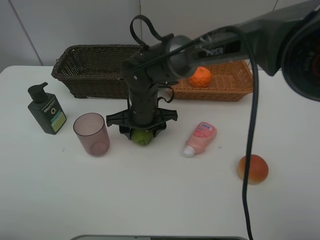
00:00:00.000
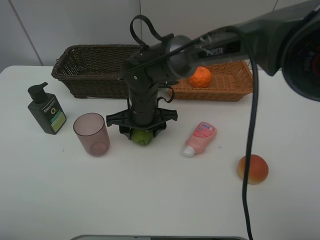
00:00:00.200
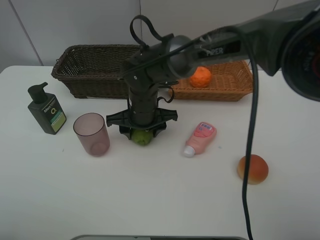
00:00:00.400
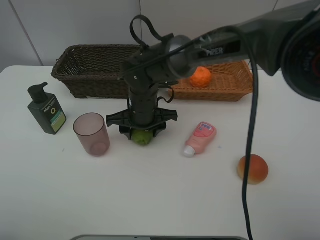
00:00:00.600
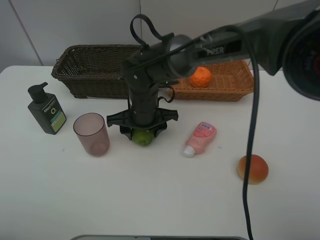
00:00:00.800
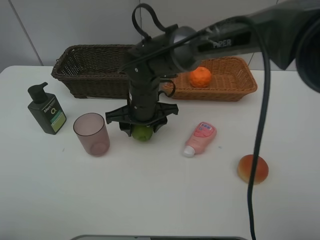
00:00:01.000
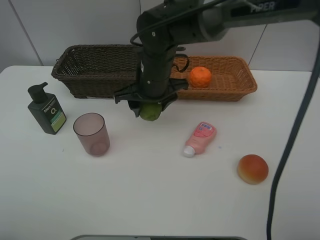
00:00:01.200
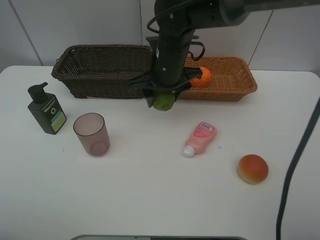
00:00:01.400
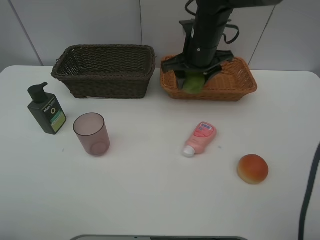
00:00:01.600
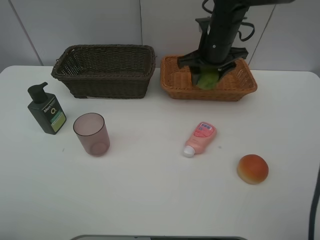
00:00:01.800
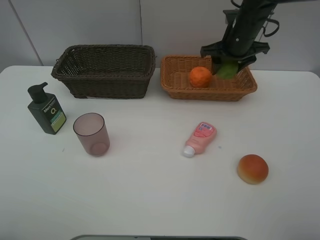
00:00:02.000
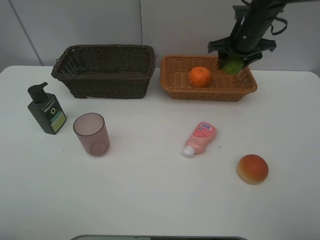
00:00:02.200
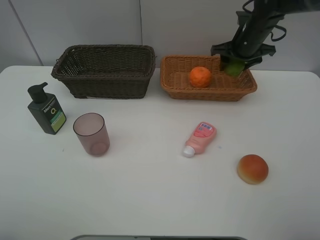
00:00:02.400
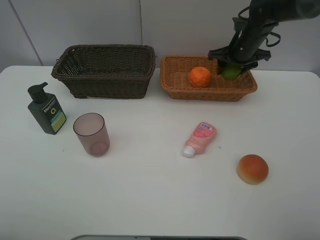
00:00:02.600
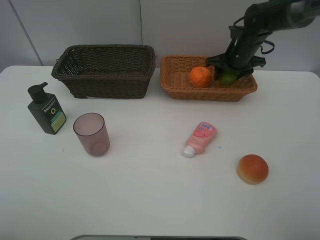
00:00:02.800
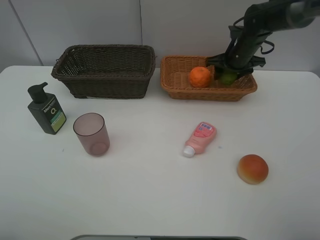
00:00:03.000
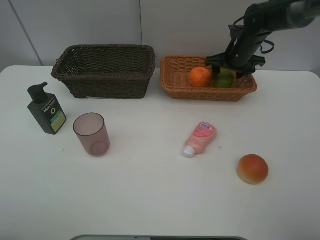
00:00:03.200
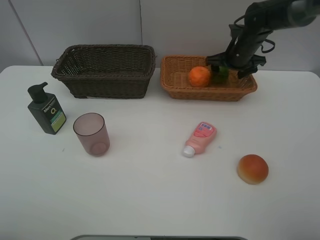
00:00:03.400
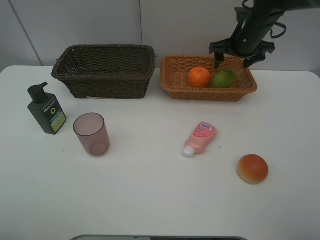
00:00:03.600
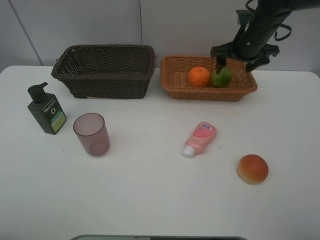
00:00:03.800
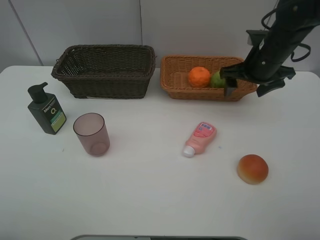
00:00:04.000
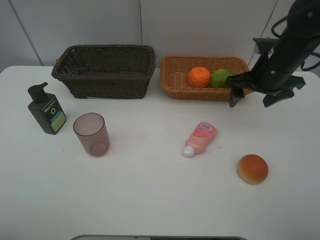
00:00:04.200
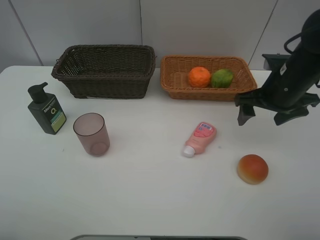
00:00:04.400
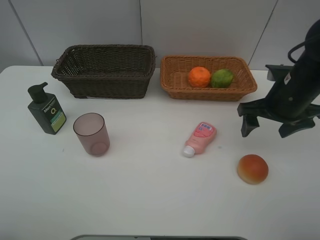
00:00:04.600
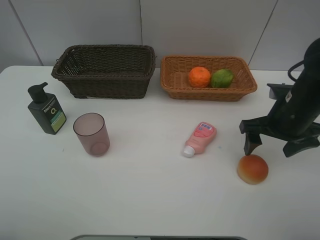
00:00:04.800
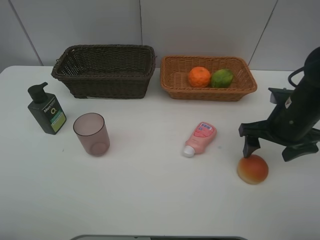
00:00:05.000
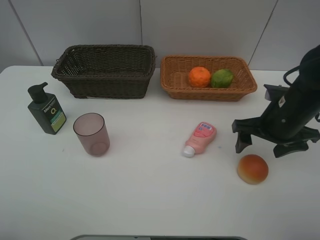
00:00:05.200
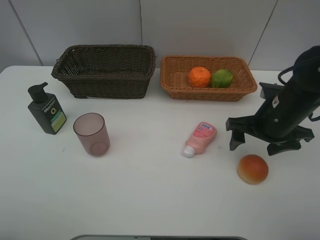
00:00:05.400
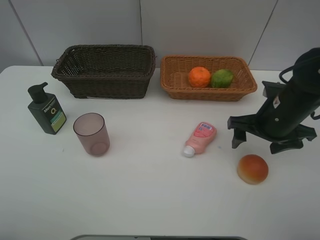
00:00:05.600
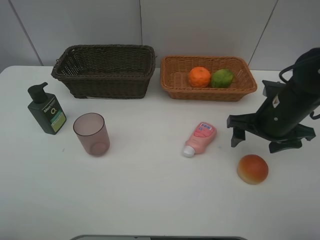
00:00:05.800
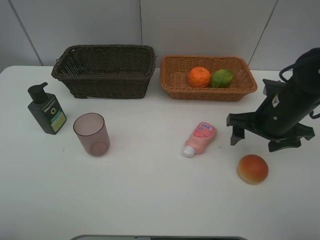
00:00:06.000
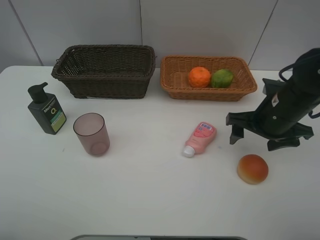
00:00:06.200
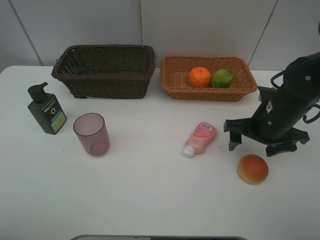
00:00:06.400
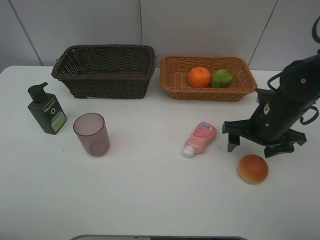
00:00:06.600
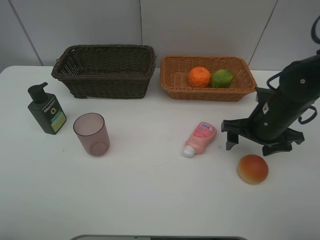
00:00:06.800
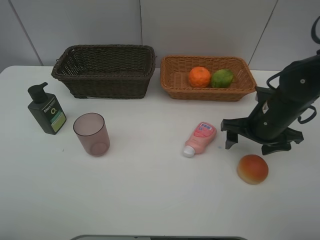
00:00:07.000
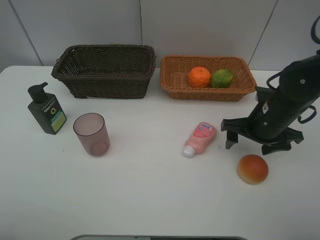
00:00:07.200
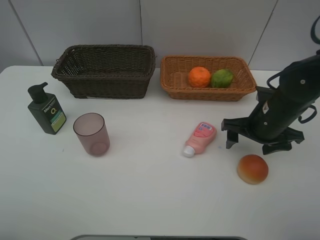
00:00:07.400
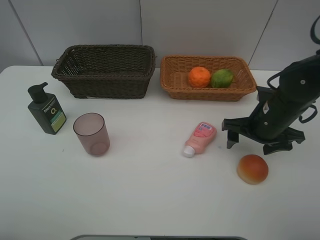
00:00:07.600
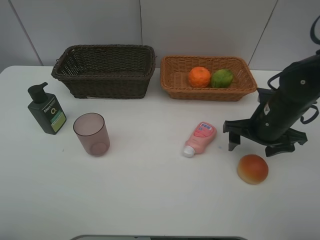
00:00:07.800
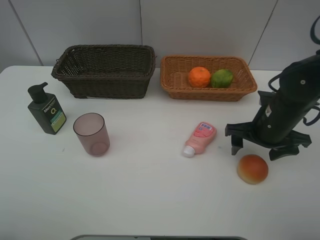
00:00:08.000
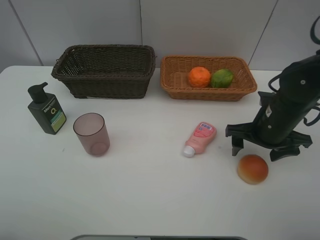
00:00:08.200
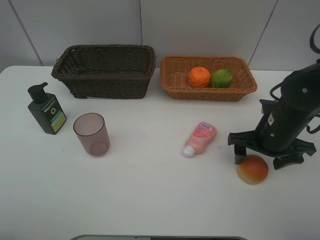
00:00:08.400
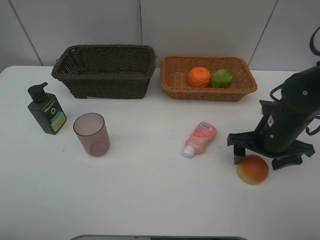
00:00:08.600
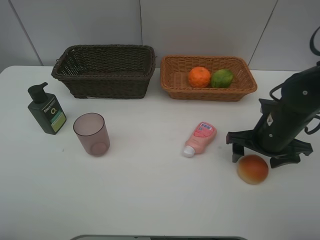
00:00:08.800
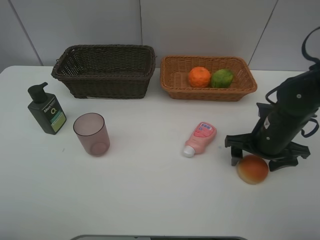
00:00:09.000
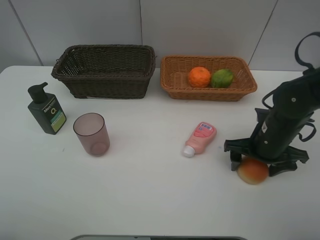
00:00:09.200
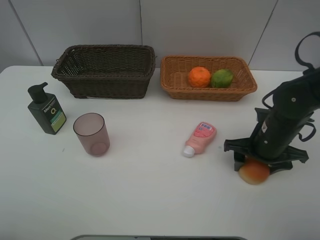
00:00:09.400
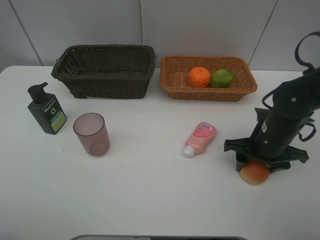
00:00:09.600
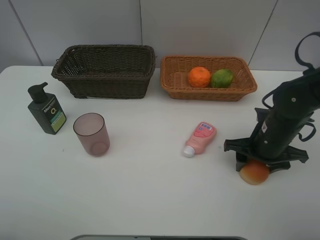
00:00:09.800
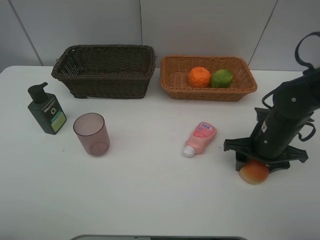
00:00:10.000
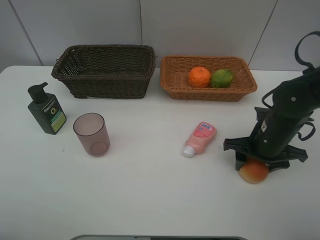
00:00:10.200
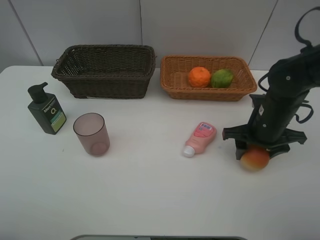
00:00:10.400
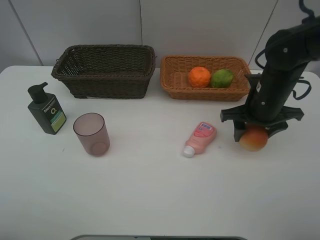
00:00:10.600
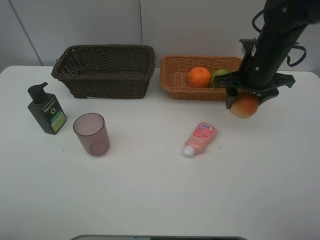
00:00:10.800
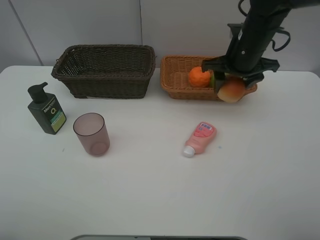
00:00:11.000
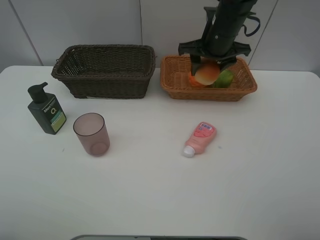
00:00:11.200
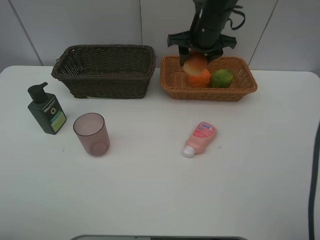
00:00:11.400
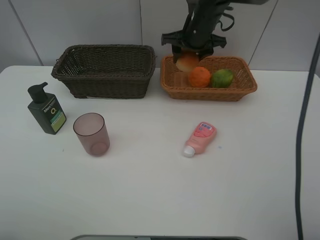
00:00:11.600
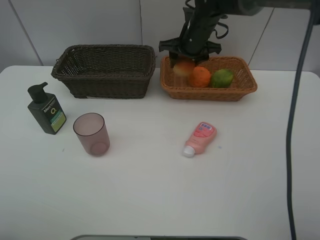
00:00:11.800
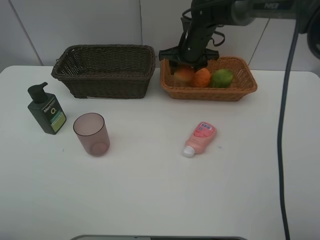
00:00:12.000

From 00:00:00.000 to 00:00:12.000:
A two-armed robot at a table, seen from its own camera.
Task of the whole recording: place multiple objects separately in different baskets.
From 00:00:00.000 to 00:00:01.600: The right gripper heads to the right, upward and forward, covering roughly 15 cm.
From 00:00:01.600 to 00:00:03.000: The right gripper heads to the right, forward and downward, covering some 15 cm.
From 00:00:03.000 to 00:00:04.400: The right gripper heads backward, covering roughly 20 cm, and opens.
From 00:00:04.400 to 00:00:06.000: The right gripper changes place by some 5 cm.
From 00:00:06.000 to 00:00:09.000: The grippers make only small movements.
From 00:00:09.000 to 00:00:10.400: The right gripper closes.
From 00:00:10.400 to 00:00:12.000: The right gripper travels forward and to the left by about 25 cm.

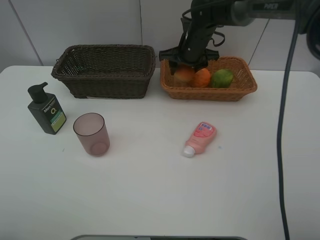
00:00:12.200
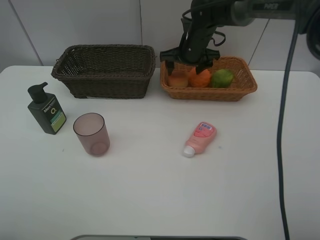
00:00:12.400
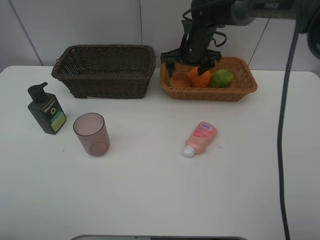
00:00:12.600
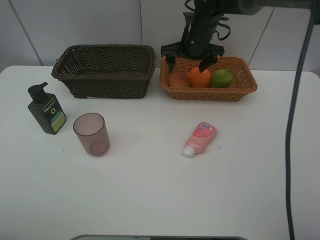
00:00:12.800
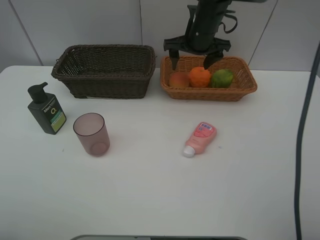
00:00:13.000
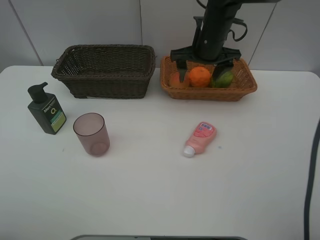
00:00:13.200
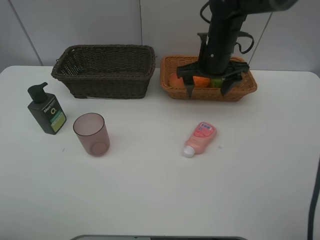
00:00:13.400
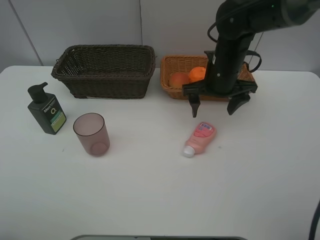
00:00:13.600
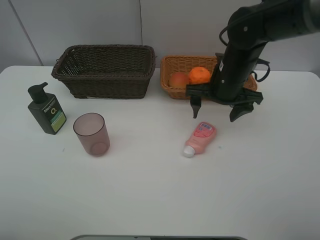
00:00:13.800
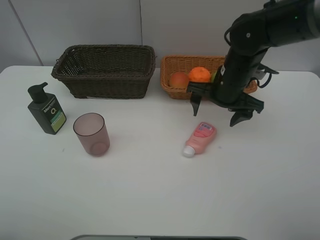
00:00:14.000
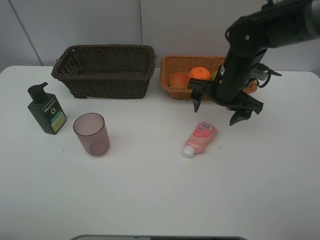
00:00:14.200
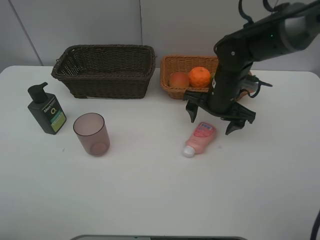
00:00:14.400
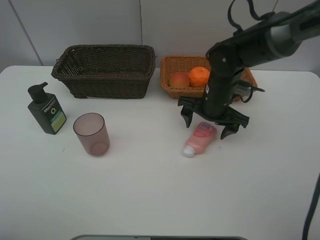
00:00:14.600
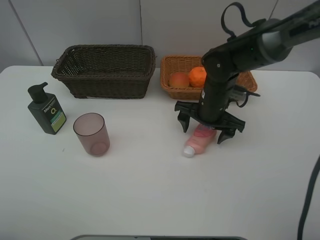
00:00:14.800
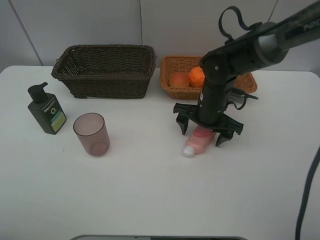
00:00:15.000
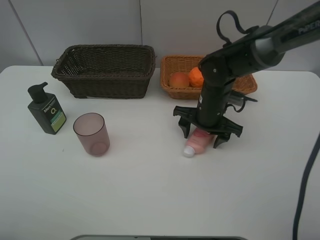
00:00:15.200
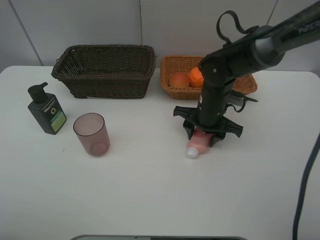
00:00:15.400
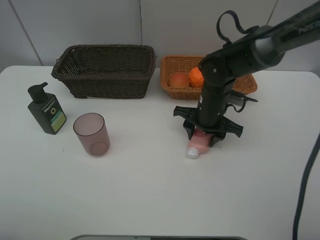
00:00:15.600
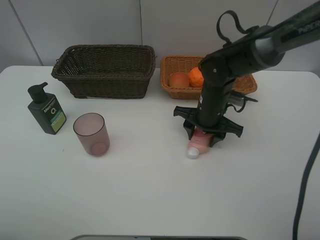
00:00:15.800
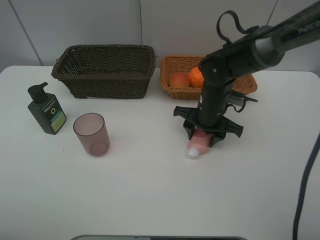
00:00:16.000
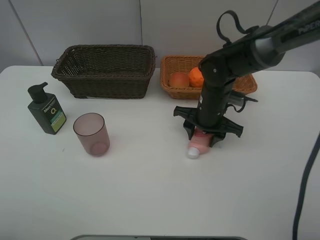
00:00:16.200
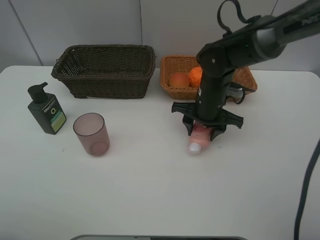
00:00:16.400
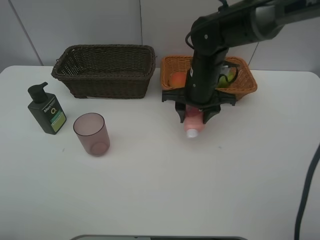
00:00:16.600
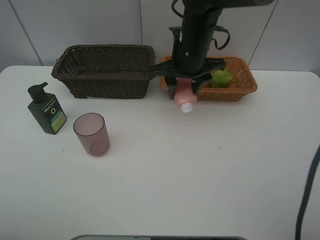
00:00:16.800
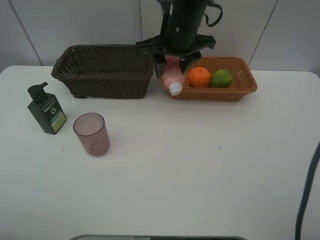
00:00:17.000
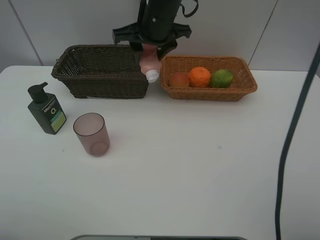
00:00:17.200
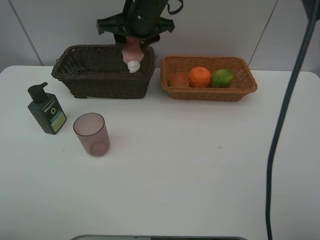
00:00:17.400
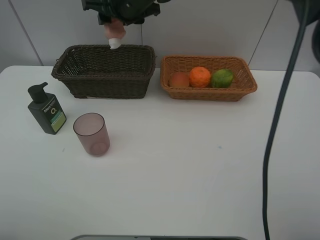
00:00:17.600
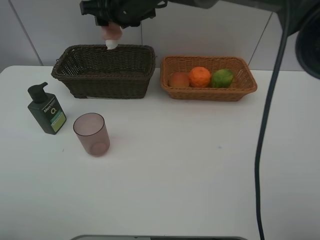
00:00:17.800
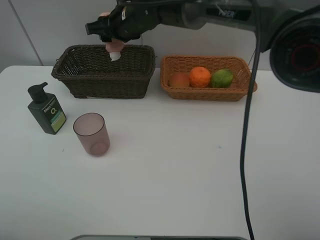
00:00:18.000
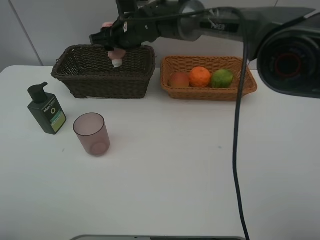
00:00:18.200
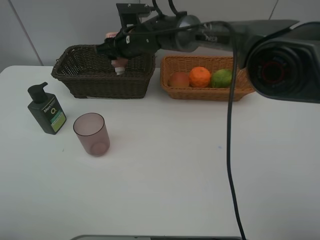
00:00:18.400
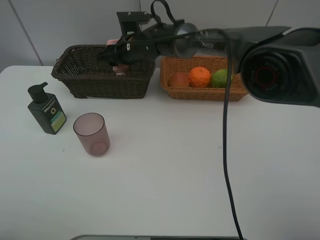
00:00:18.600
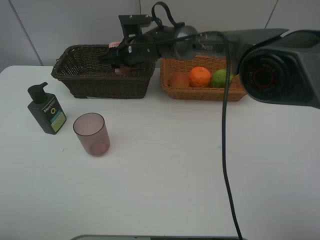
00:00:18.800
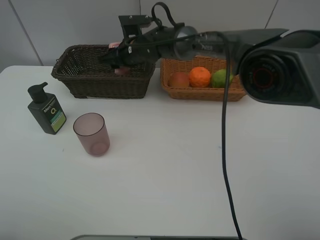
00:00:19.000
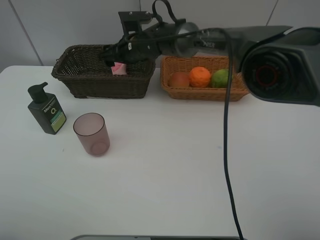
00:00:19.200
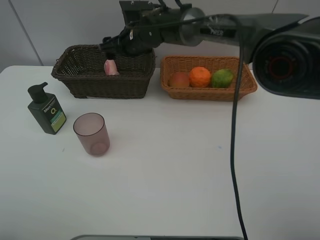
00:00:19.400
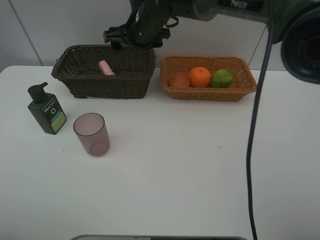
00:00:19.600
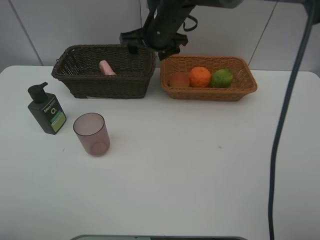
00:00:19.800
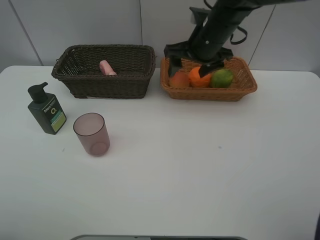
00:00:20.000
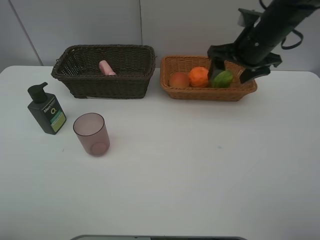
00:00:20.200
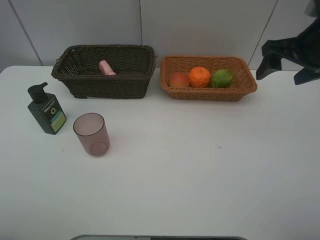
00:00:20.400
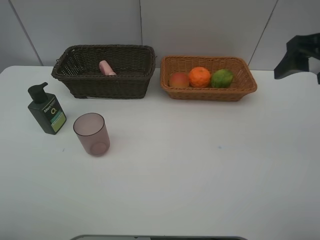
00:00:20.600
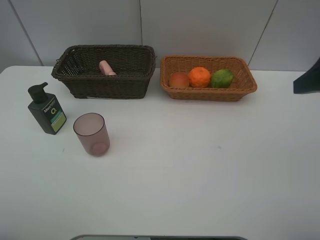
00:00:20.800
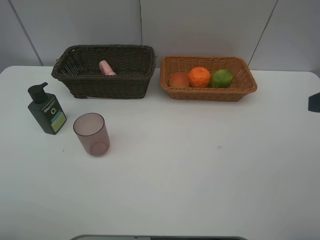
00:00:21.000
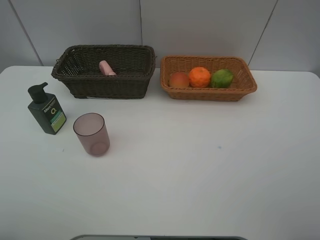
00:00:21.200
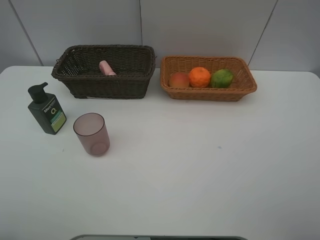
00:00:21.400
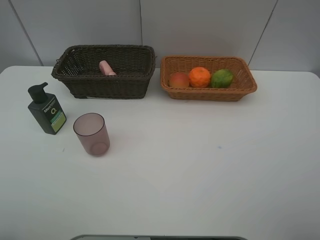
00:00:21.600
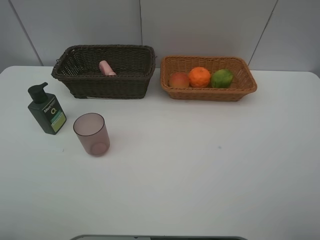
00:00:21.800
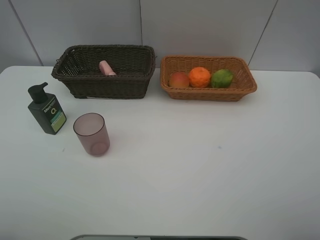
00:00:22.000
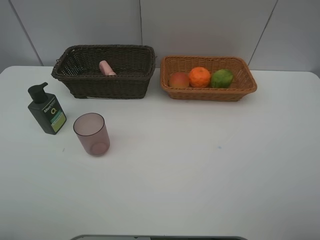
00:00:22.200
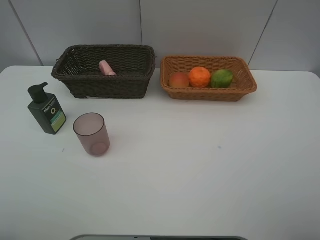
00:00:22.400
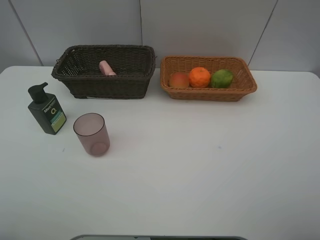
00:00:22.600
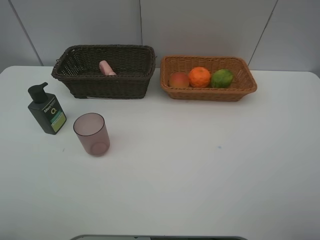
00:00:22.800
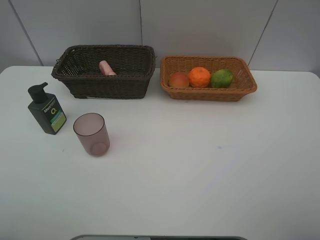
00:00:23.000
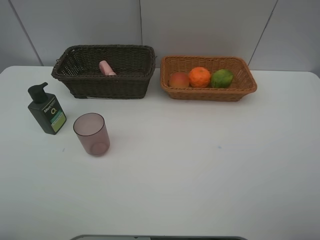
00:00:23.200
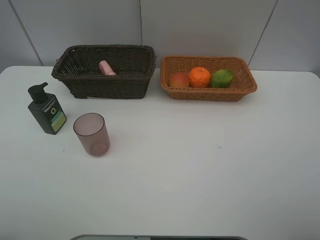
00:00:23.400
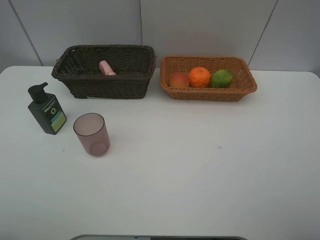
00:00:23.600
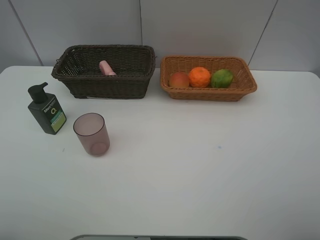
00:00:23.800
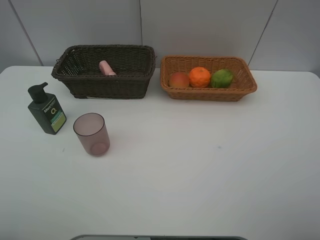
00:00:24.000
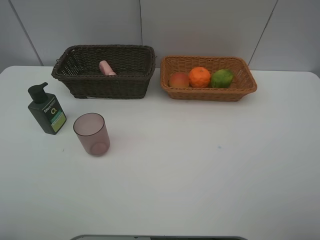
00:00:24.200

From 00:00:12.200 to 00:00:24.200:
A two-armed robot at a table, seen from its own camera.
Task of the whole recording: place multiple objects separately in different baskets.
From 00:00:12.200 to 00:00:13.800: The right gripper shifts roughly 15 cm backward, and opens up.
From 00:00:13.800 to 00:00:15.200: The right gripper goes about 5 cm downward, and closes up.
From 00:00:15.200 to 00:00:16.600: The right gripper travels upward by about 5 cm, and closes.
From 00:00:16.600 to 00:00:18.200: The right gripper is displaced to the left and forward by about 20 cm.
From 00:00:18.200 to 00:00:19.800: The right gripper shifts some 10 cm to the right, and opens up.
From 00:00:19.800 to 00:00:21.200: The right gripper moves backward and to the right, roughly 40 cm.
From 00:00:22.600 to 00:00:24.200: Both grippers stay put.
